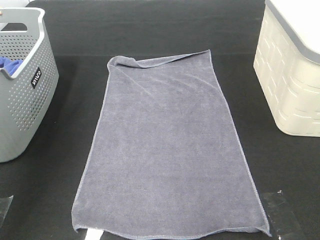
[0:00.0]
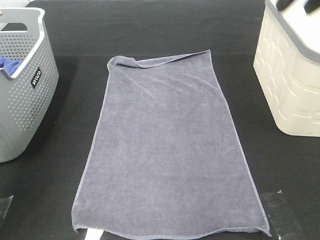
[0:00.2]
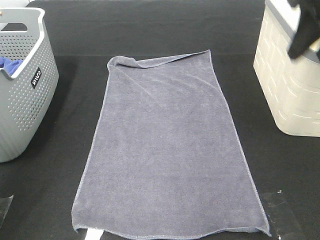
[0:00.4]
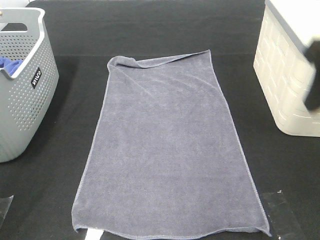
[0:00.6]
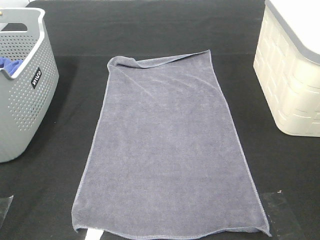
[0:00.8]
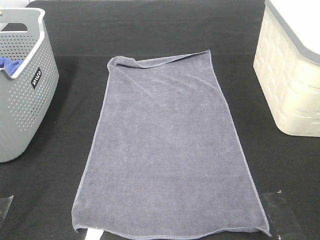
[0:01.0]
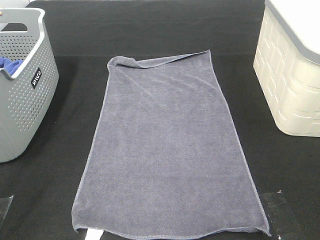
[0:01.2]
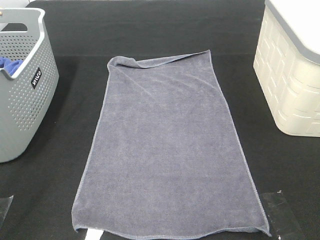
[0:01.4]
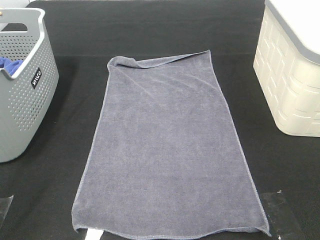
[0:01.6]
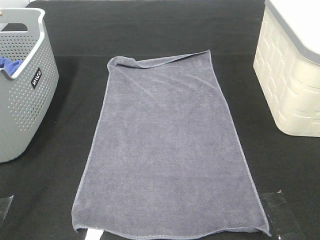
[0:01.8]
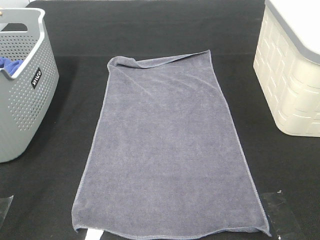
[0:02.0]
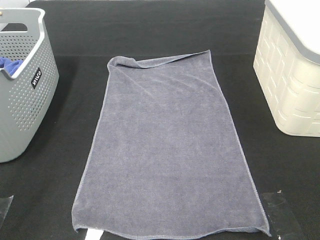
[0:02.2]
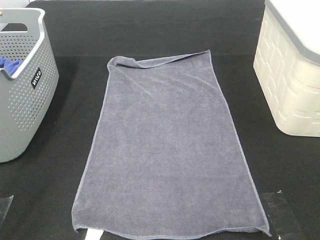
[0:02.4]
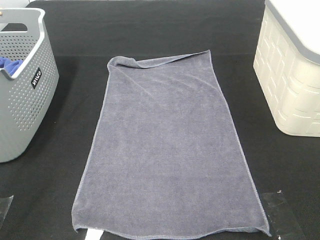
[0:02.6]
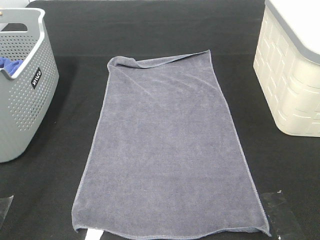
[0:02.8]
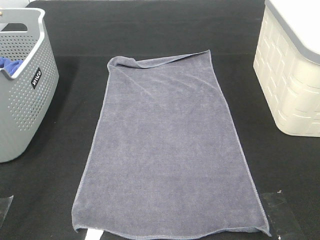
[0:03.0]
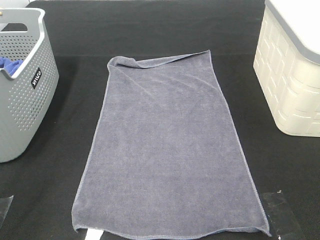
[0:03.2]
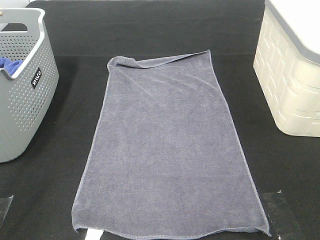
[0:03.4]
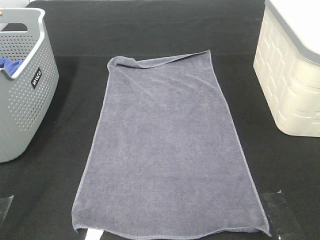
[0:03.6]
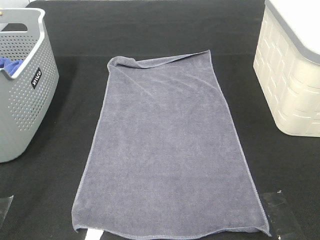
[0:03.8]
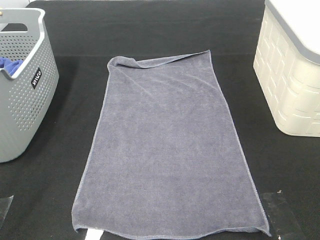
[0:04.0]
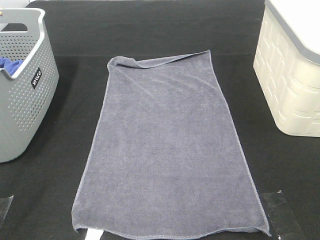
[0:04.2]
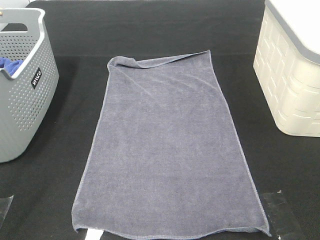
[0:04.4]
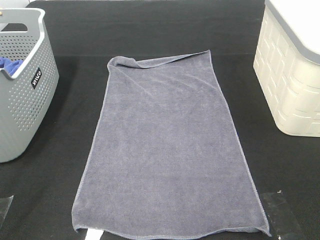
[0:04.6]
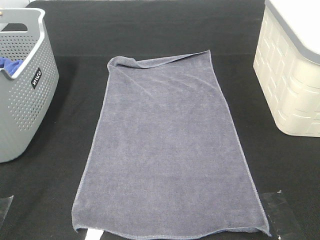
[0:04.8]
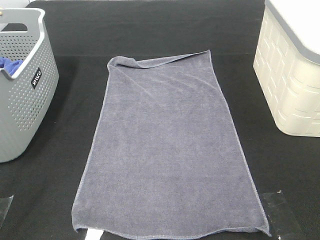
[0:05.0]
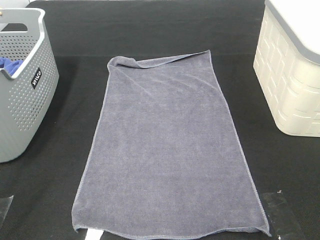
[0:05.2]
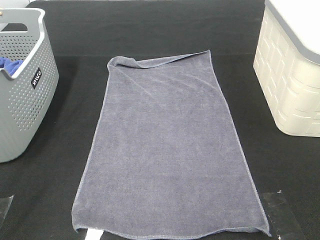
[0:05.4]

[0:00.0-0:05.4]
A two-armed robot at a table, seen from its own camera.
Task of the whole recording: Remove the towel and place it.
0:00.0 to 0:01.4: The left gripper is displaced backward and downward by about 25 cm.
0:04.0 to 0:05.4: Both grippers stay put.

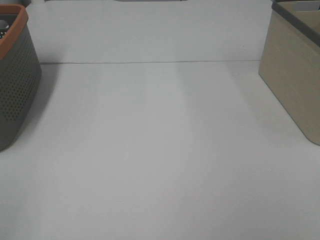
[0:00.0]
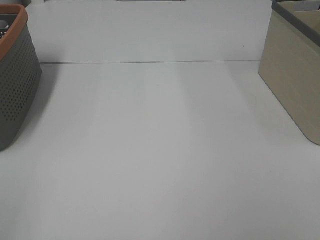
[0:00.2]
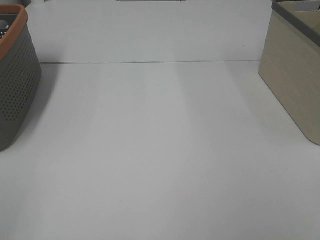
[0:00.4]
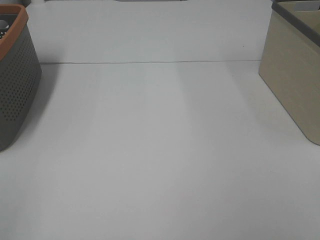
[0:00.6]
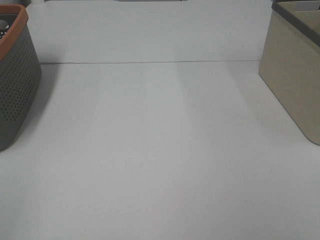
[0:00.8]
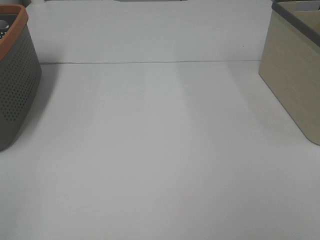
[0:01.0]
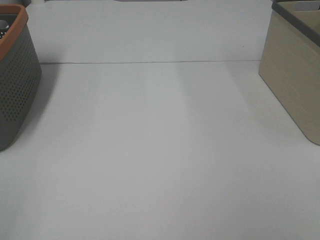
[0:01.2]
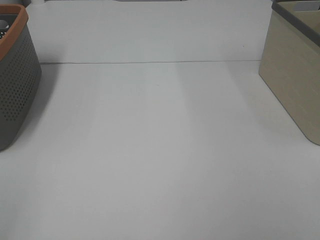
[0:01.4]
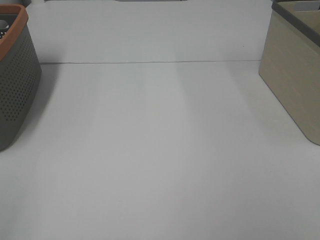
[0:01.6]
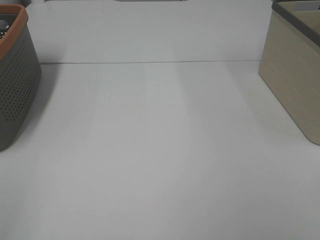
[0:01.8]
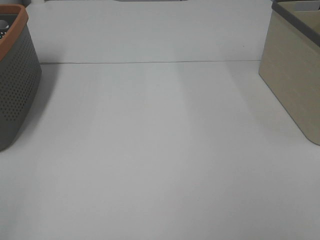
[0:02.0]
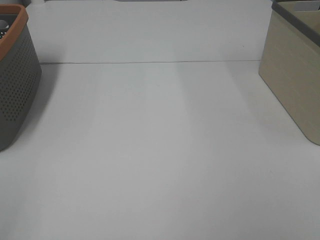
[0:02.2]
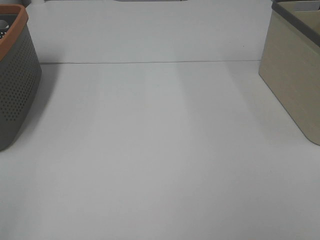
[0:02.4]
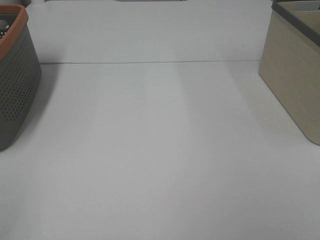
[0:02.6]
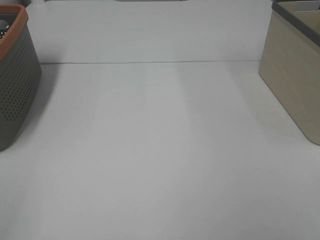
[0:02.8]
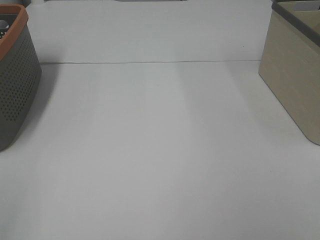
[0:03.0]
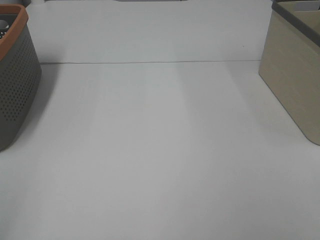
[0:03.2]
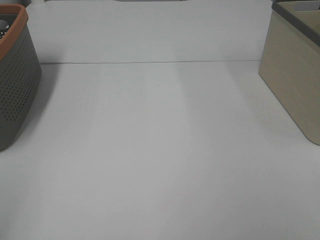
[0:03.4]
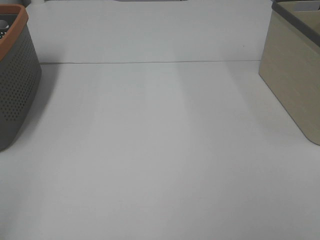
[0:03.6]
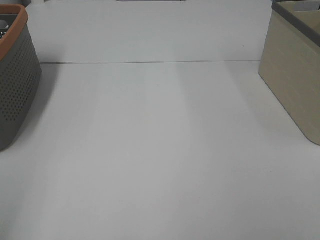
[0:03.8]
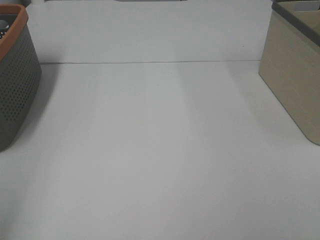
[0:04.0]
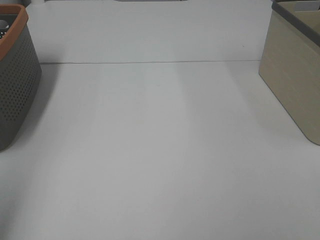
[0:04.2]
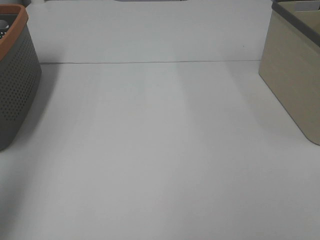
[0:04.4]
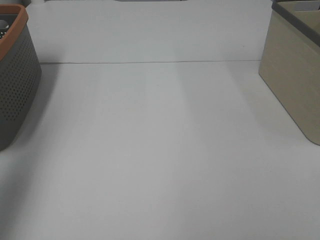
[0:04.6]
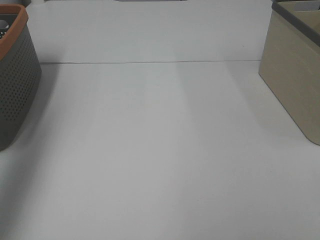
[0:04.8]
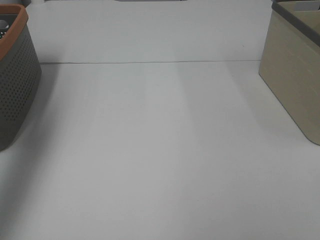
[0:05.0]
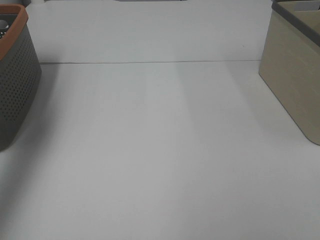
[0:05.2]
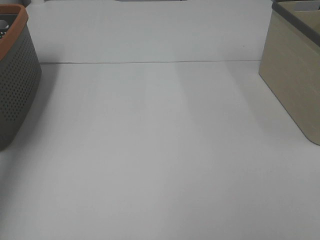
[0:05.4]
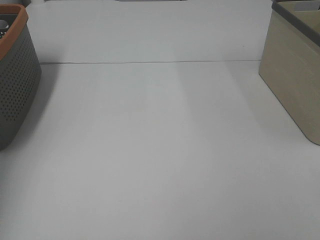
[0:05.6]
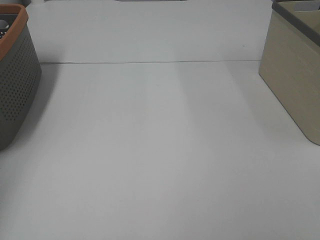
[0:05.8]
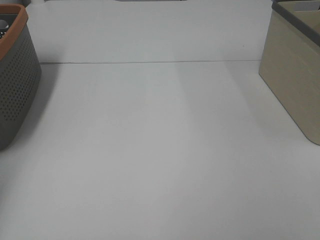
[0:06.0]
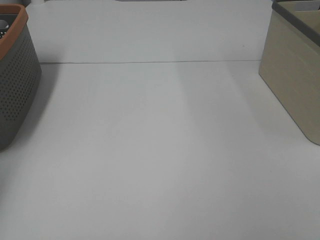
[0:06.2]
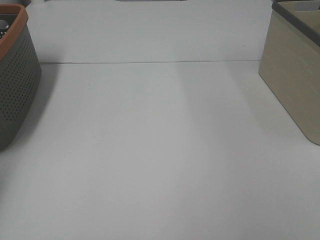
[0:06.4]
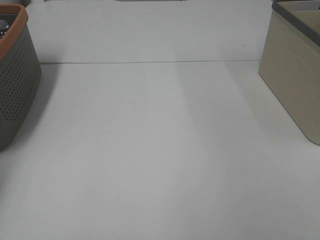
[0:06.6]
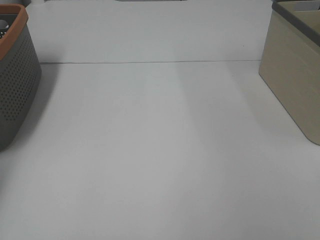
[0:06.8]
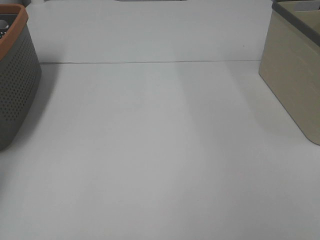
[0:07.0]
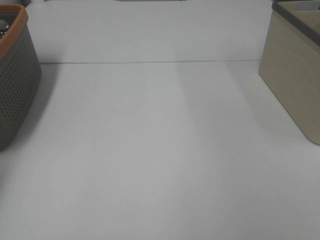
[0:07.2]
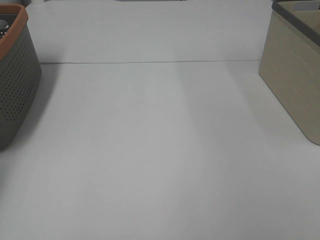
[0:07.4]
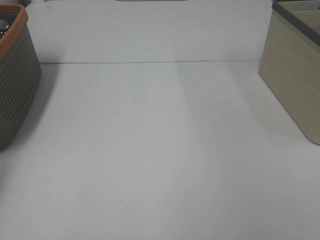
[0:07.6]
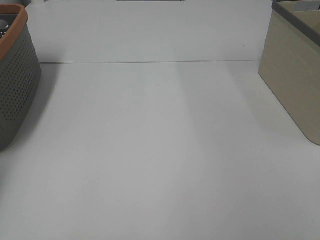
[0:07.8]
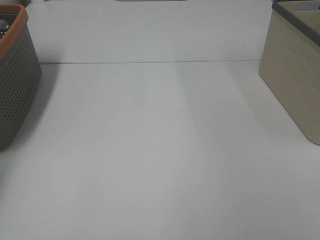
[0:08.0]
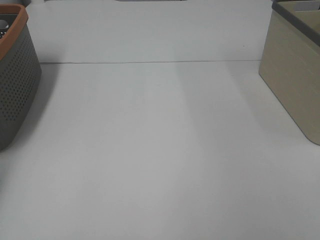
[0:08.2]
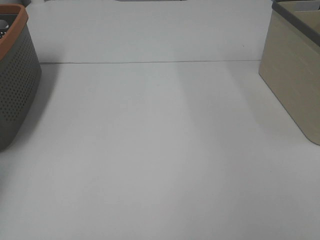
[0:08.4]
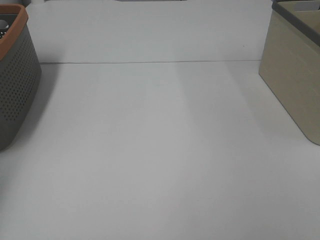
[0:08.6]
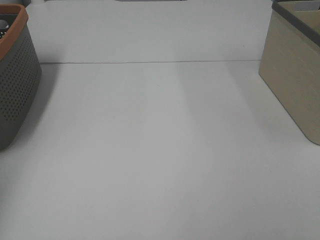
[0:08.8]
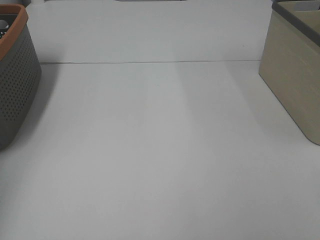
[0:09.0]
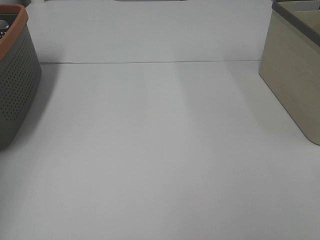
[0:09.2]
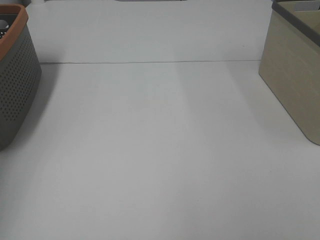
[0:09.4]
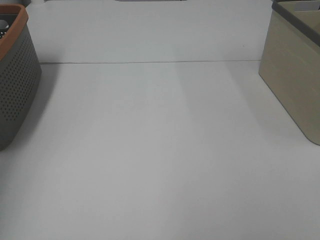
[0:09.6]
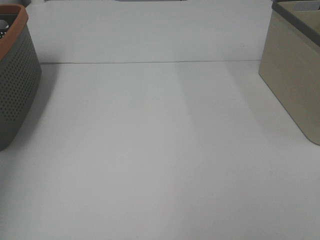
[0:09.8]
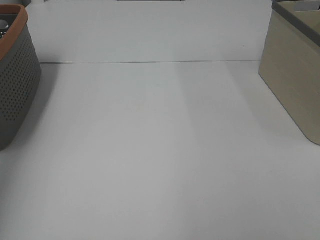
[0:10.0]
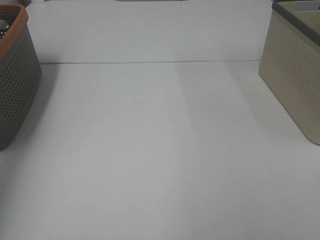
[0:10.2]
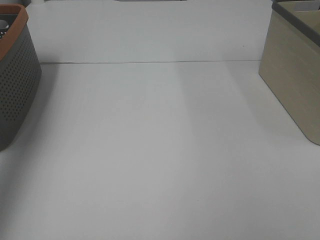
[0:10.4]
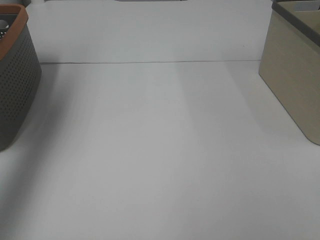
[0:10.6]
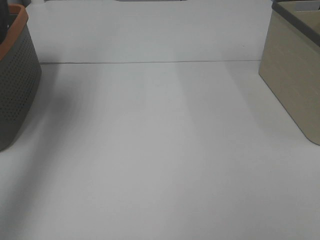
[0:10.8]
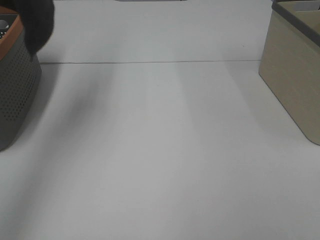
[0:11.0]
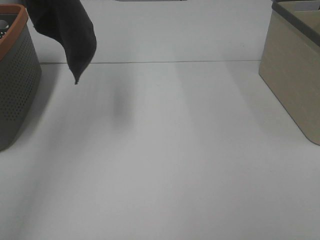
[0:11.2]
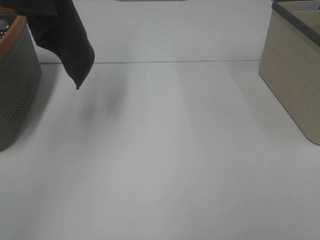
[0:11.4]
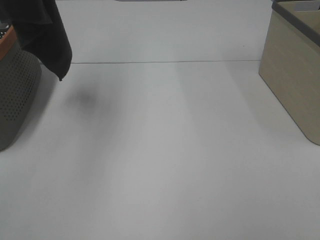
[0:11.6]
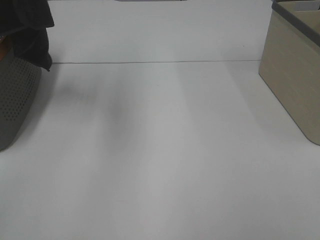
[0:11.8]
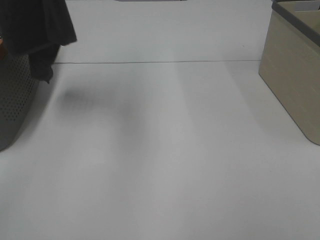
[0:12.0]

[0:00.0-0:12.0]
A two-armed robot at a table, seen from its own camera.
Task of the whole recording: Remove the towel and place it.
0:00.0 to 0:03.0: Neither gripper changes place.
0:03.0 to 0:04.4: The left gripper shifts about 20 cm forward and upward.
0:04.4 to 0:06.0: The left gripper moves forward and downward, approximately 30 cm.
0:09.0 to 0:10.4: The left gripper is displaced upward and backward by about 20 cm.
0:10.4 to 0:12.0: The left gripper is displaced to the right by about 20 cm.

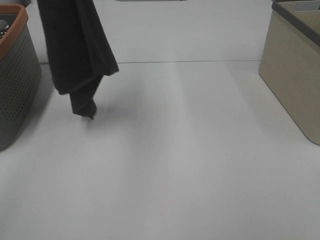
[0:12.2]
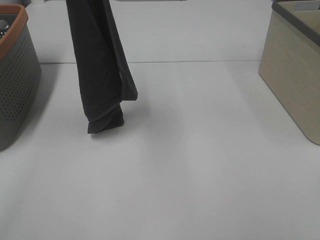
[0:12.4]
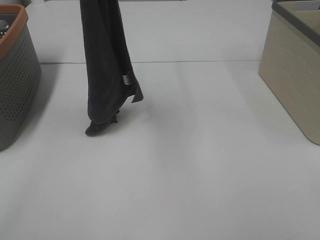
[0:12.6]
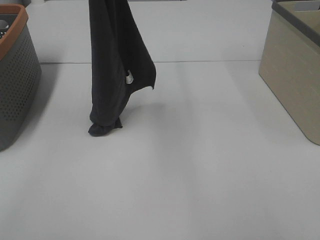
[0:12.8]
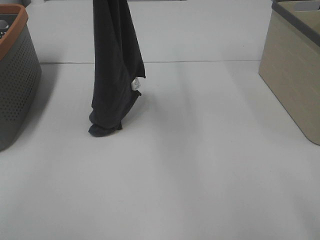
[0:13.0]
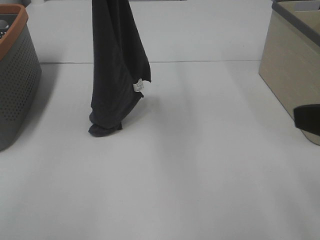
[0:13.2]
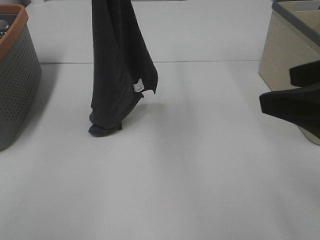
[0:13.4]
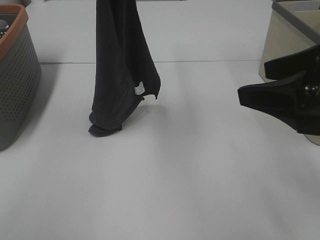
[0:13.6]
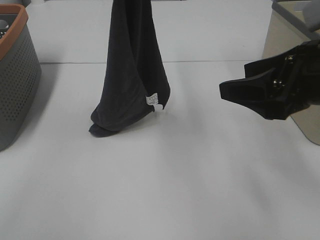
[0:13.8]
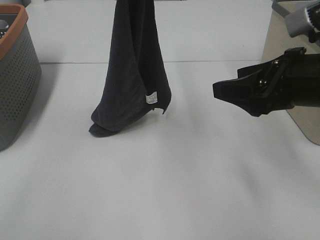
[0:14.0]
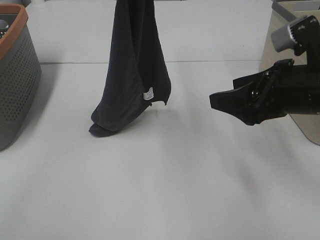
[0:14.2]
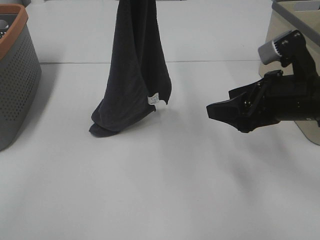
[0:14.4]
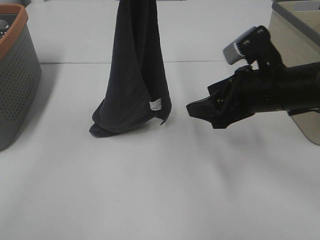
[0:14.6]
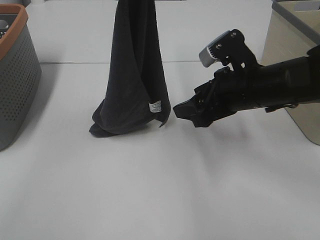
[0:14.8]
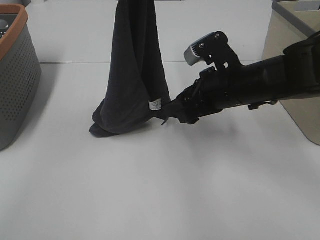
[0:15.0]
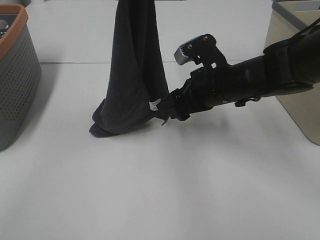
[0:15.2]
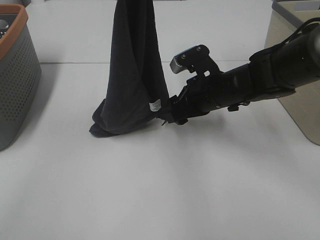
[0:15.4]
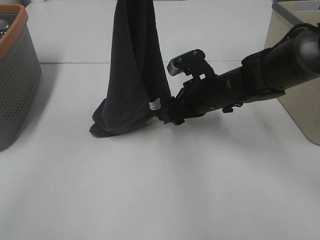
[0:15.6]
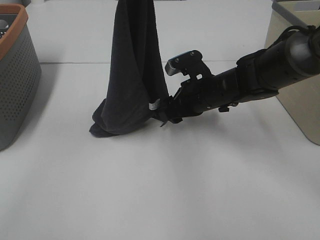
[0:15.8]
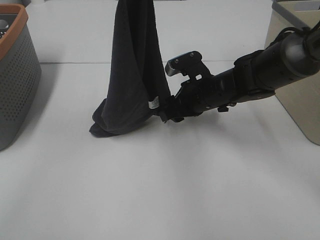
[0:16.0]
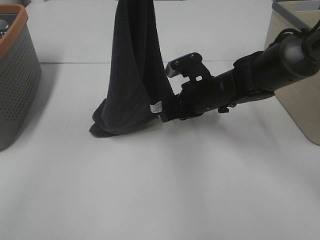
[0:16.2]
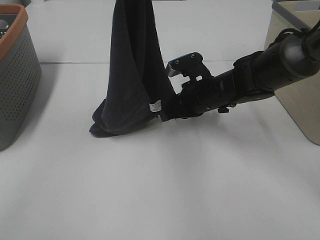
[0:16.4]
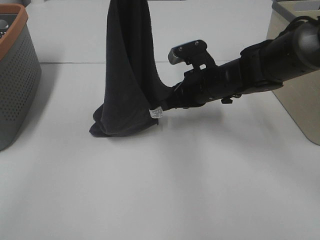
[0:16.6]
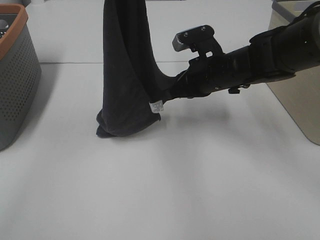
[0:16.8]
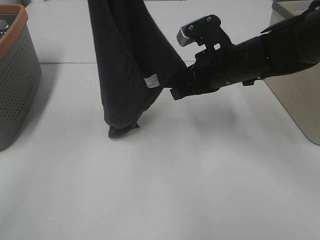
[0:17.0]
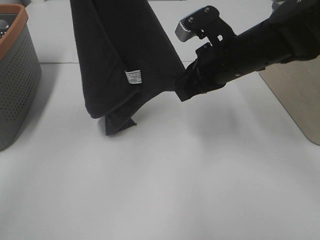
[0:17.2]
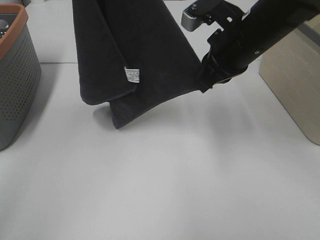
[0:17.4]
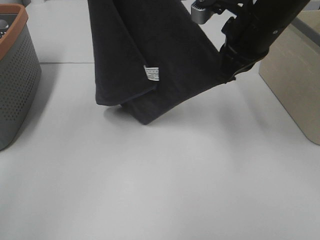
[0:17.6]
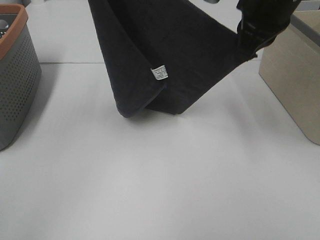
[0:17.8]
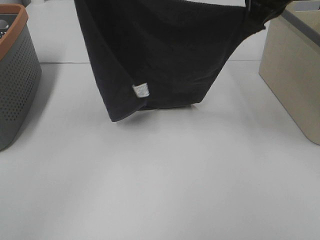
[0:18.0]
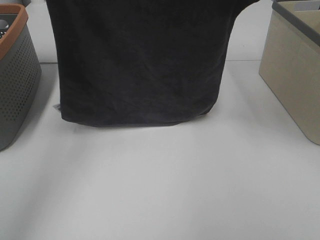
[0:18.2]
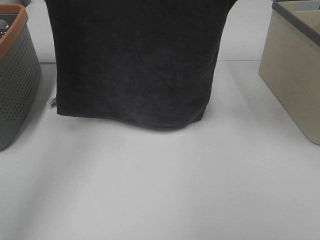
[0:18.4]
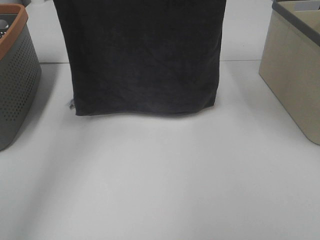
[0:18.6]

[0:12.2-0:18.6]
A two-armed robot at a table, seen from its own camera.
Task of the whole recording: Remove the towel and place it.
Step, 0:12.2 to 0:14.6: Right hand: grab a corner of the grey towel and straighten it.
Step, 0:14.8 to 0:18.0: Left hand: spread the grey towel flat on the table.
Step, 0:14.8 to 0:18.0: Right hand: spread the grey towel flat on the table.
0:12.2 to 0:13.8: The left gripper heads downward and to the right, covering about 10 cm. Meanwhile the right gripper shifts about 20 cm forward.
0:13.8 to 0:15.4: The right gripper moves forward, downward and to the left, about 20 cm.
0:15.4 to 0:17.0: The left gripper is displaced to the left by roughly 5 cm; the right gripper goes some 5 cm upward, and closes up.
0:17.0 to 0:18.6: The left gripper shifts some 15 cm to the left and downward; the right gripper goes roughly 20 cm upward.
